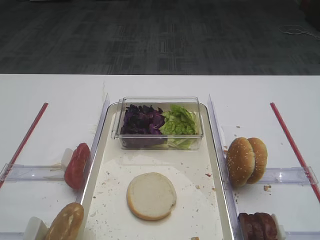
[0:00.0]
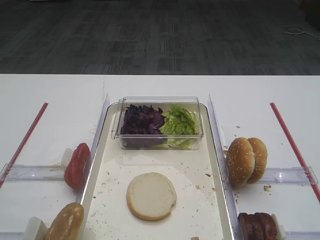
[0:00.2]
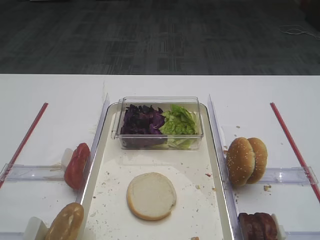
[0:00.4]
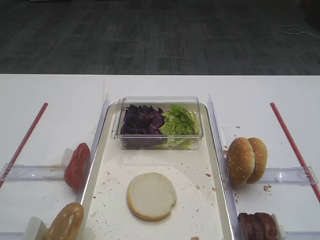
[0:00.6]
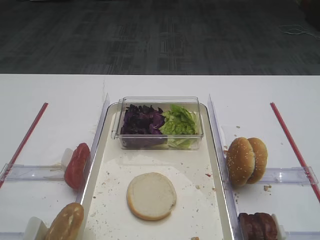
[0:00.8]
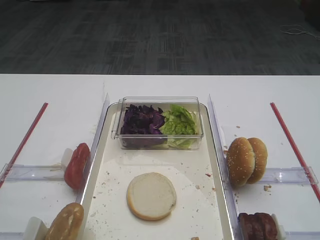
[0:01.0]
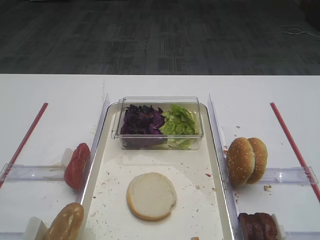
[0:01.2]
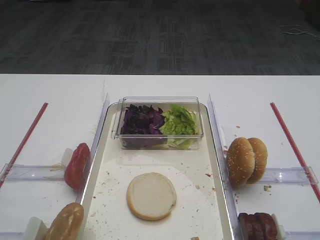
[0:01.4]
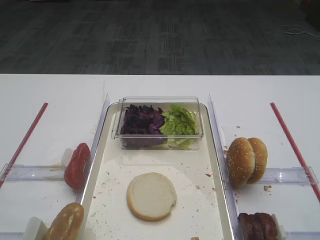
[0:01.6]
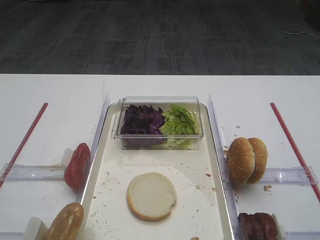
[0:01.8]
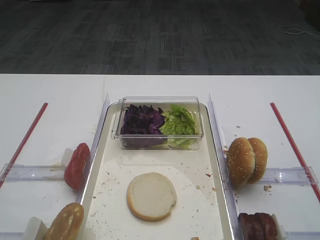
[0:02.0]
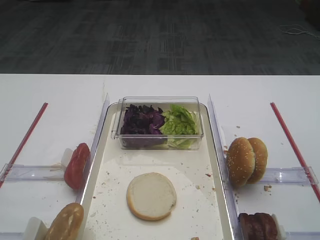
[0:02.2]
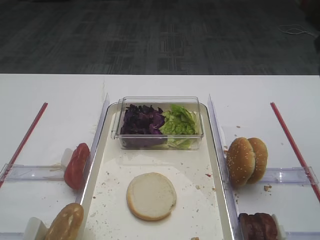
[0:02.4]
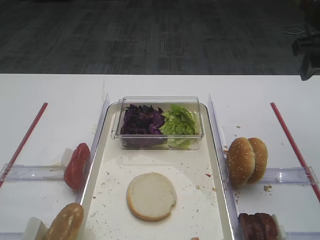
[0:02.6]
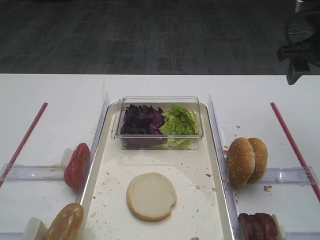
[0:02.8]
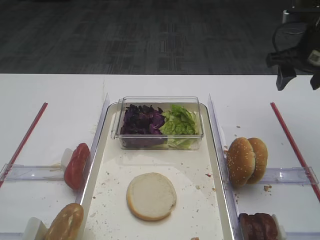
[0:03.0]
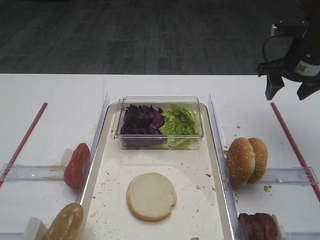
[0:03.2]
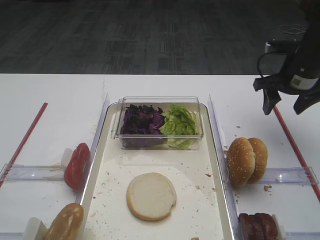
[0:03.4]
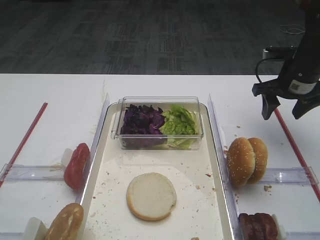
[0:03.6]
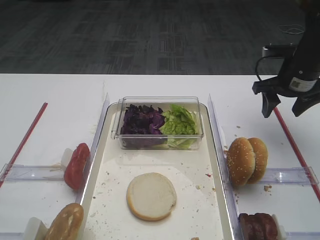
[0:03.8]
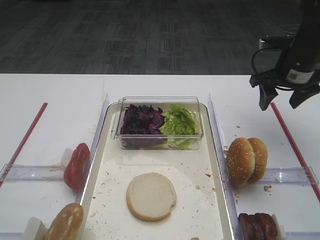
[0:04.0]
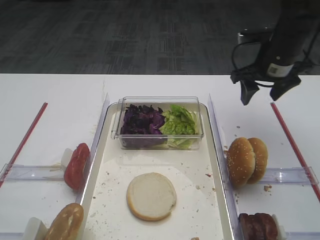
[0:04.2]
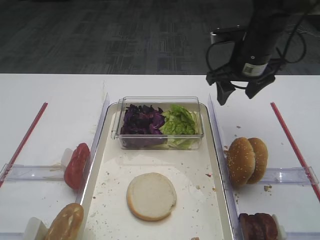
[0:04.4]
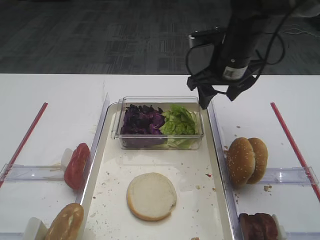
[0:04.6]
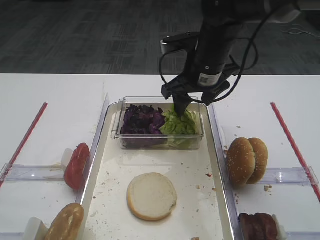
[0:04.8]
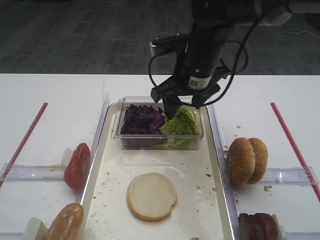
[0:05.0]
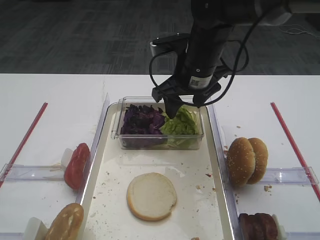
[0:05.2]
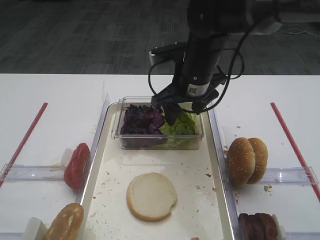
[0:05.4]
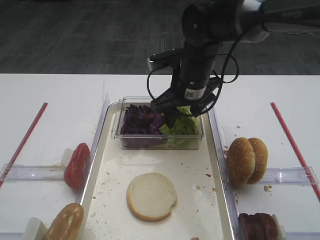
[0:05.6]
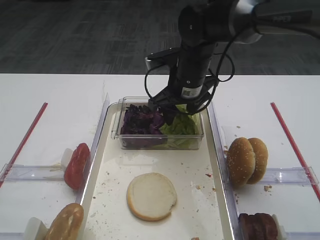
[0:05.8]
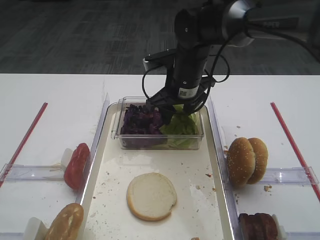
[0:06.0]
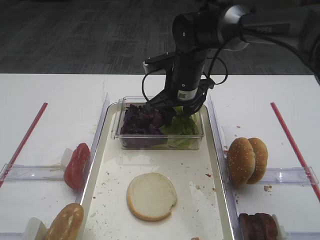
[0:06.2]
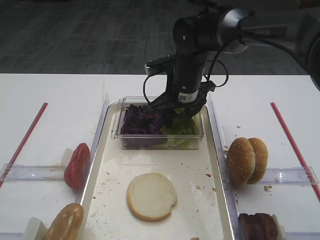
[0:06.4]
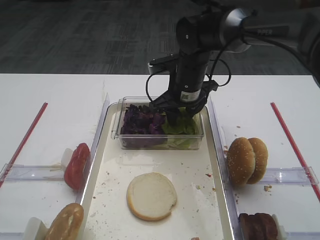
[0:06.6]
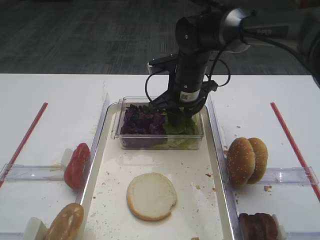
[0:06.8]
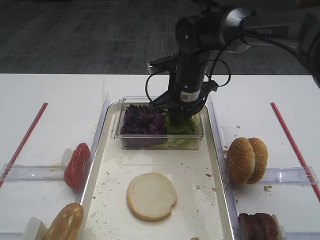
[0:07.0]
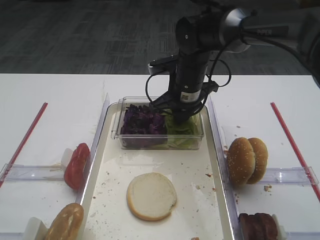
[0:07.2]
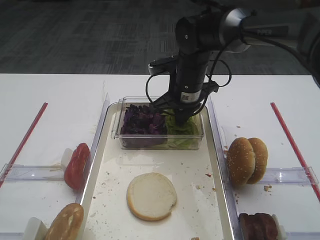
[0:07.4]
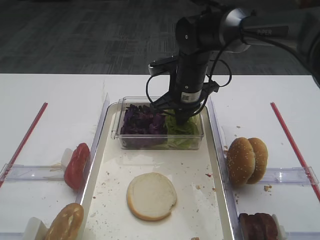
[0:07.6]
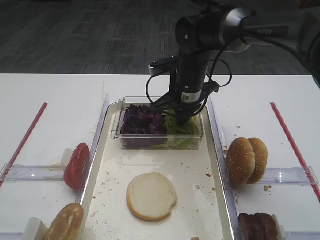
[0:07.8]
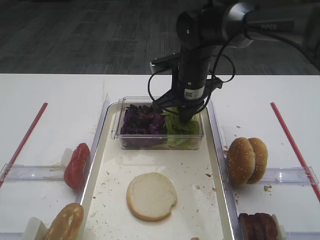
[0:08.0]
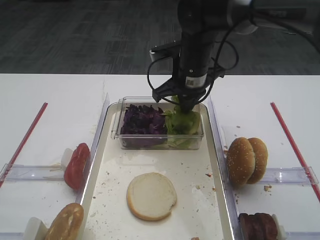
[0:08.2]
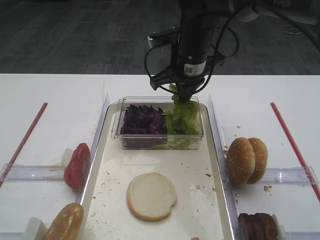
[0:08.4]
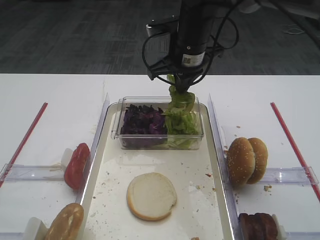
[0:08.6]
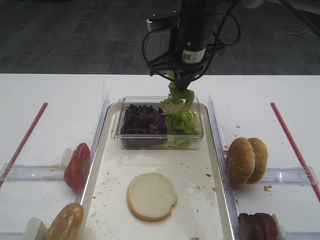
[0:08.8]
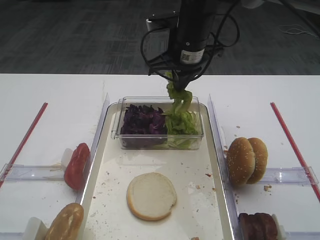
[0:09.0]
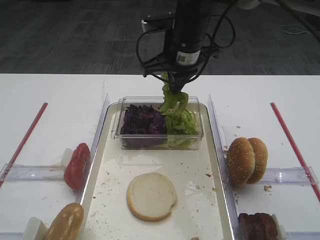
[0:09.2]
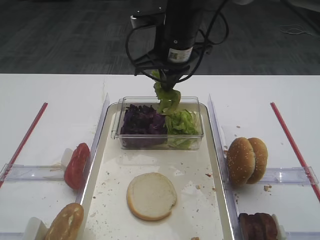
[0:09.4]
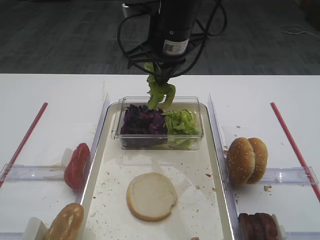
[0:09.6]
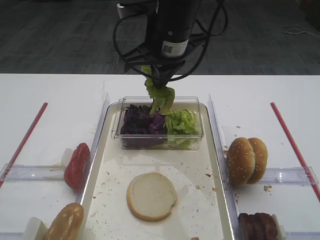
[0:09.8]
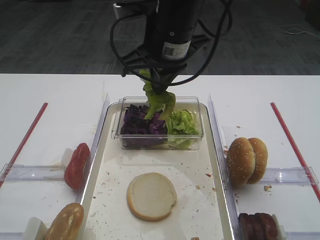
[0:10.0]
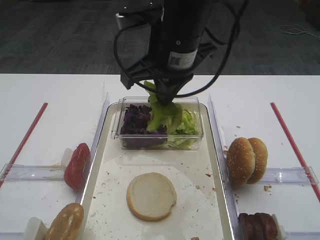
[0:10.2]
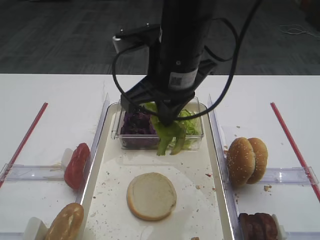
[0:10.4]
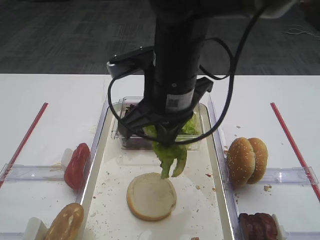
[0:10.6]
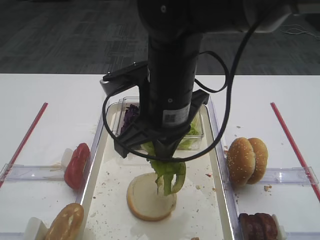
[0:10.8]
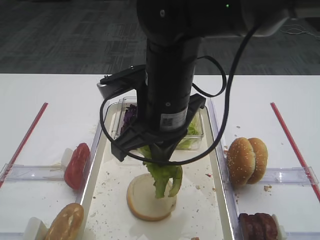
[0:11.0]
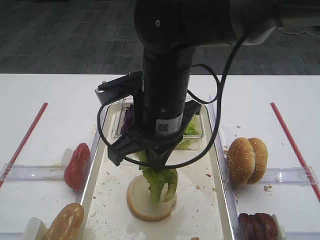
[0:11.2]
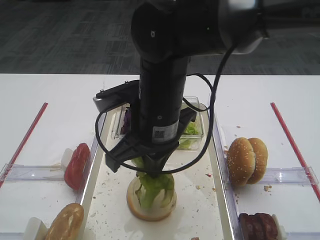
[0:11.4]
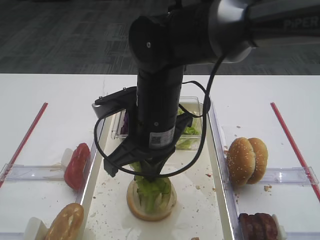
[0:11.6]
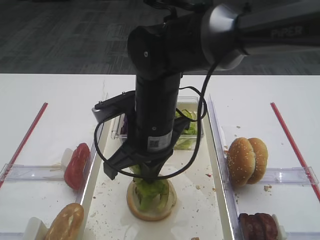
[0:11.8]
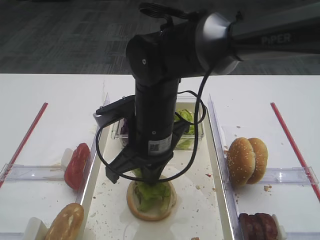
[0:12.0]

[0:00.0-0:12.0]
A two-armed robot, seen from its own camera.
Step, 0:00.0 to 0:08.6: Pick up the lettuce leaf with the right gripper.
0:01.6 to 0:03.0: The right gripper goes roughly 35 cm forward.
0:03.0 to 0:04.4: The right gripper moves to the left, some 10 cm.
0:04.4 to 0:06.0: The right gripper moves to the left, some 15 cm.
0:06.0 to 0:07.6: The right gripper closes its fingers.
0:07.6 to 0:09.0: The right gripper shifts roughly 10 cm upward.
0:09.0 to 0:10.4: The right gripper is displaced backward by roughly 10 cm.
0:10.4 to 0:12.0: The right gripper heads downward, covering approximately 10 cm.

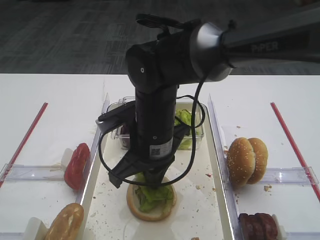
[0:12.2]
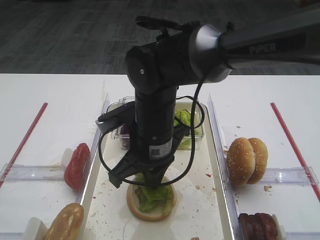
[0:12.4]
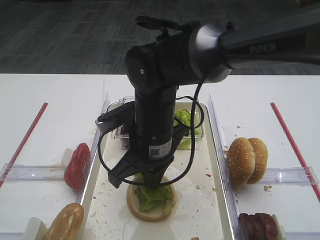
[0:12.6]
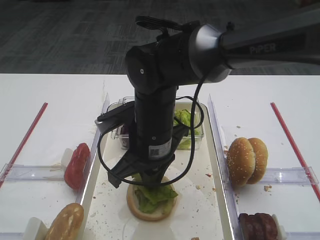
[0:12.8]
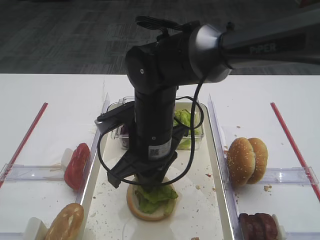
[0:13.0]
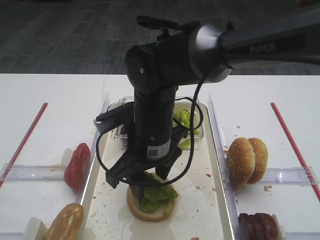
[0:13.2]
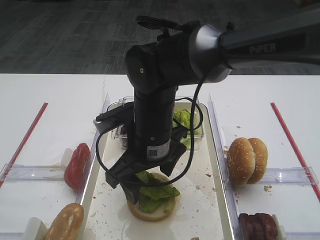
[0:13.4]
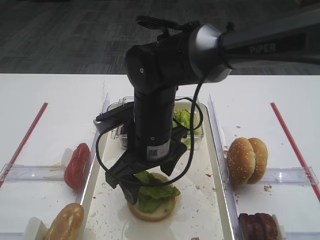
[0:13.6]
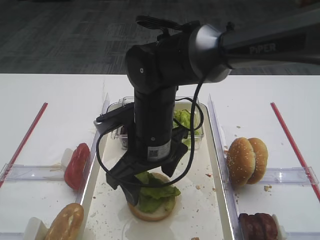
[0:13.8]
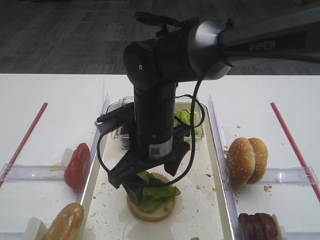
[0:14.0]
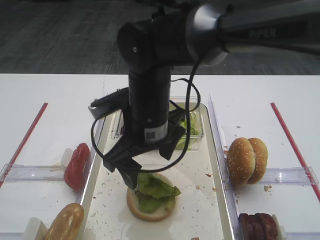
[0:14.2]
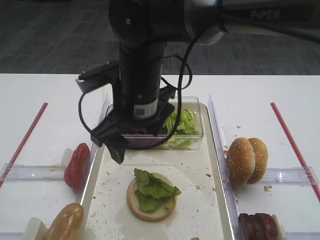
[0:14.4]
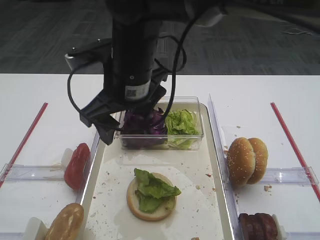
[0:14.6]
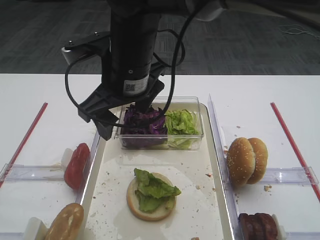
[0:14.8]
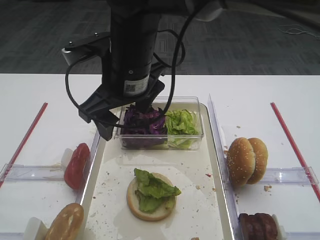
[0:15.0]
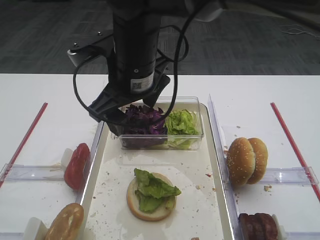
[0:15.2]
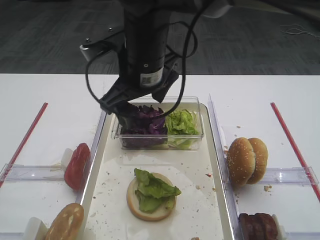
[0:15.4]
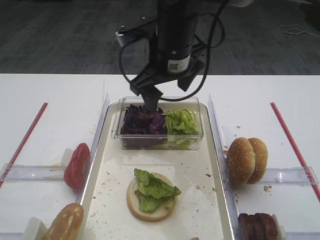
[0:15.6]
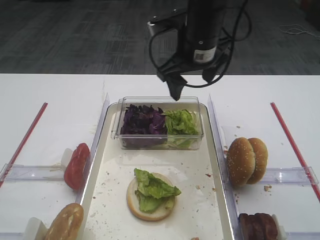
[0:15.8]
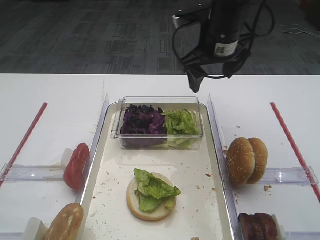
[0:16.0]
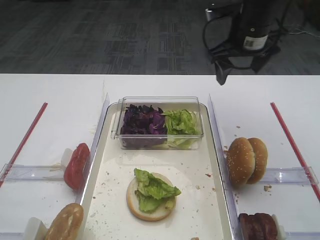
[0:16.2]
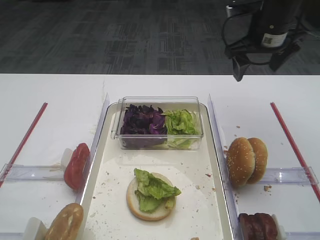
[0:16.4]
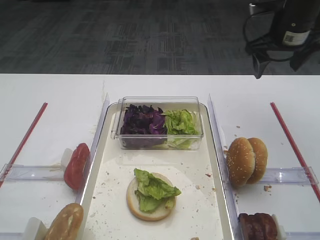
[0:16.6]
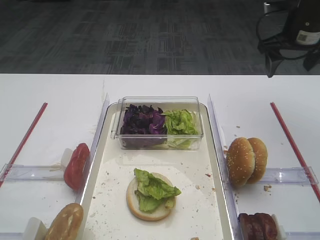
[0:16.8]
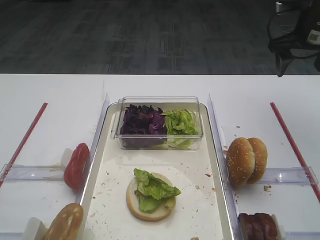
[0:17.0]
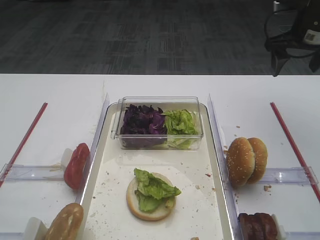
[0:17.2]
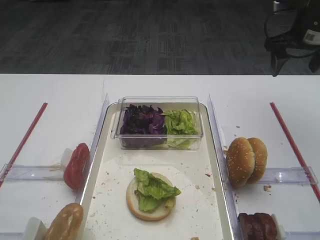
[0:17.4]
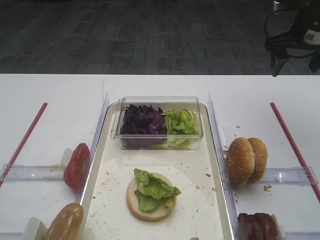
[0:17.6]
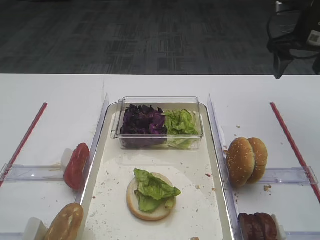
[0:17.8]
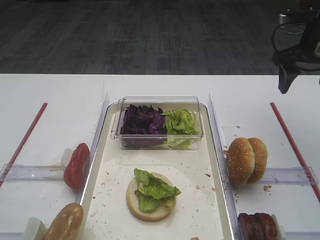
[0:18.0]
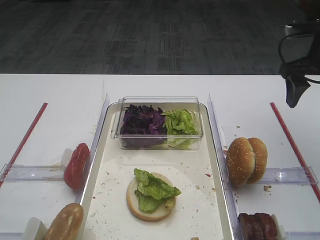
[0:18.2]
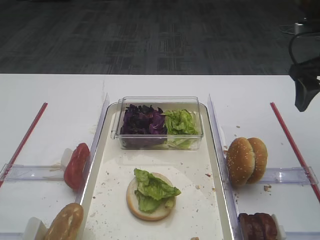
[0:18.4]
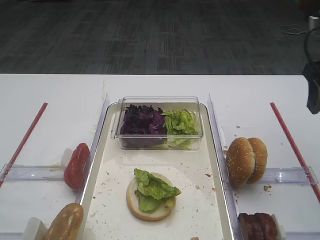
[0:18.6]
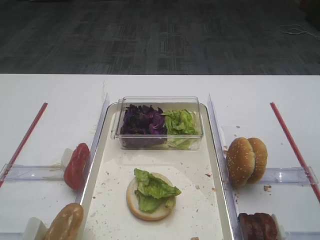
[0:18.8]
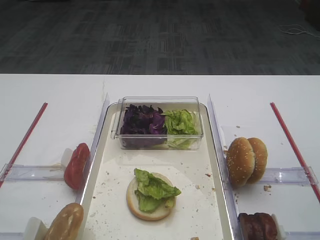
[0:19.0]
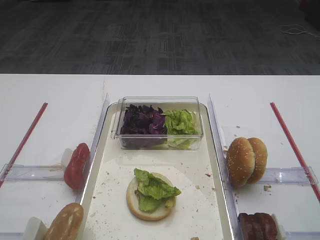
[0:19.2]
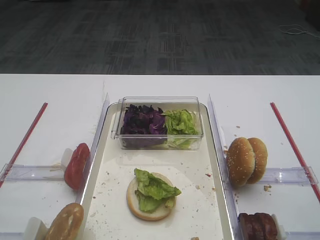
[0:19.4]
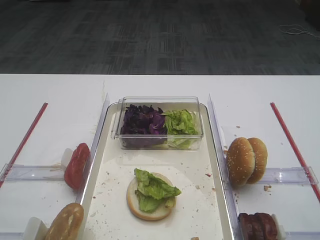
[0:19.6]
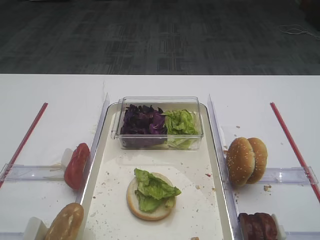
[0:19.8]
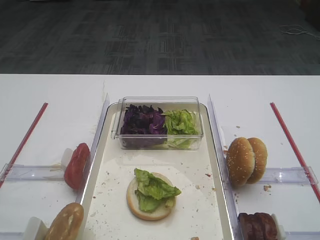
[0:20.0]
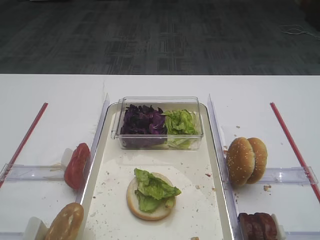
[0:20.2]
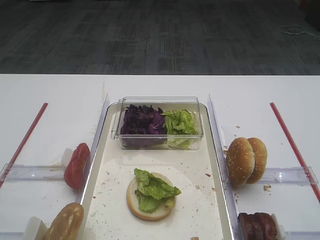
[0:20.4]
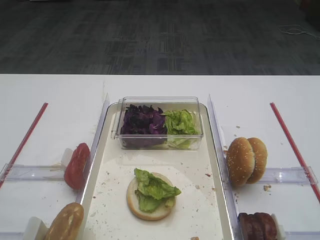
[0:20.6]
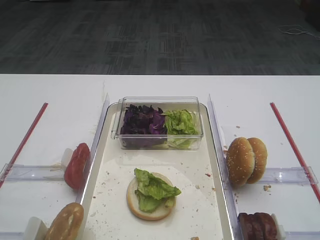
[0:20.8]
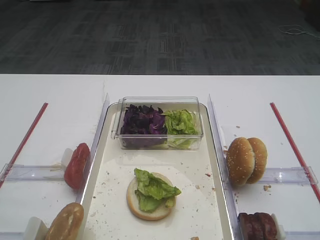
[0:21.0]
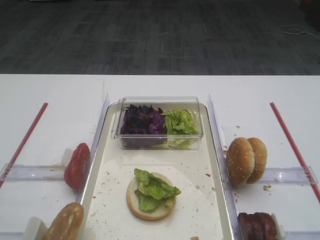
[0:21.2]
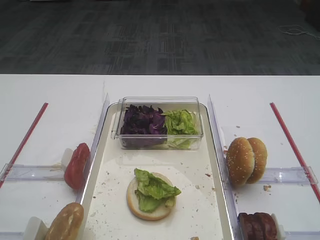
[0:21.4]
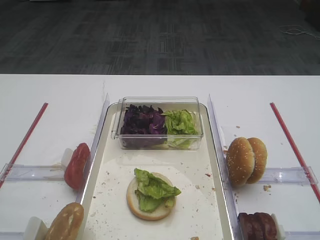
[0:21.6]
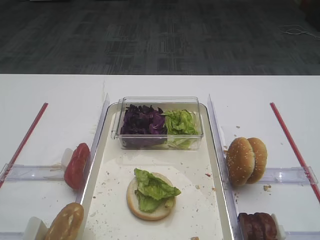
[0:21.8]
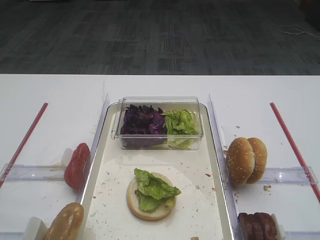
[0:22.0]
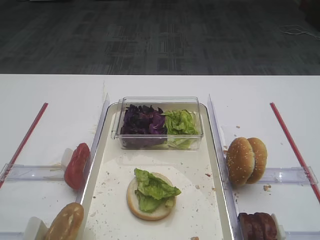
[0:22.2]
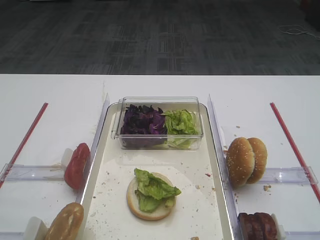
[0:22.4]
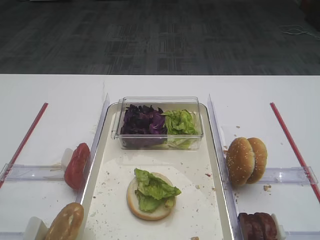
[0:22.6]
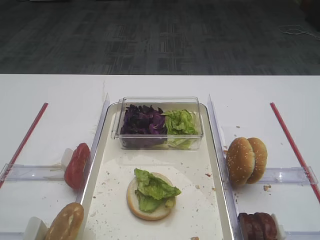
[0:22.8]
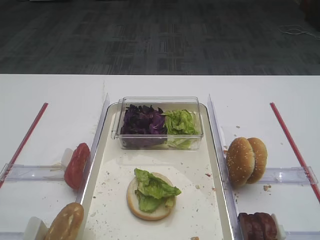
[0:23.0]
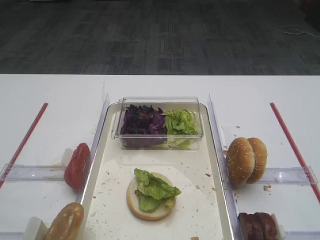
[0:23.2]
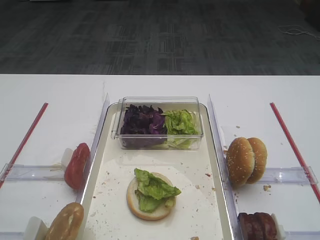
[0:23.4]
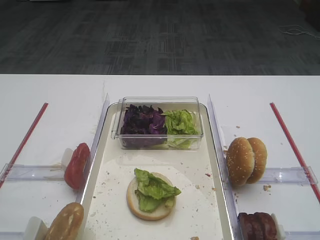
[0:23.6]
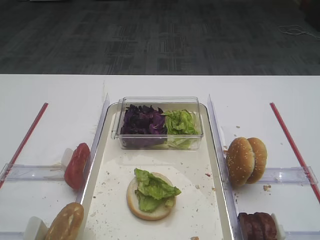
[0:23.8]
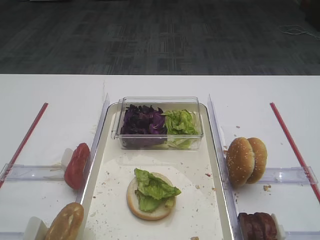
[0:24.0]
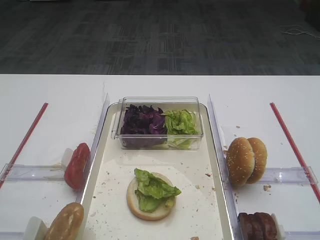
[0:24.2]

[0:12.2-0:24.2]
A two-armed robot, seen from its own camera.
0:12.2 to 0:13.8: The right gripper opens its fingers.
0:13.8 to 0:15.2: The right gripper travels upward by approximately 10 cm.
0:15.2 to 0:16.6: The right gripper moves to the right and forward, some 30 cm.
0:16.6 to 0:18.2: The right gripper goes roughly 10 cm backward and to the right.
0:18.2 to 0:19.8: The right gripper moves backward, approximately 30 cm.
0:21.2 to 0:24.2: Neither gripper changes place.
